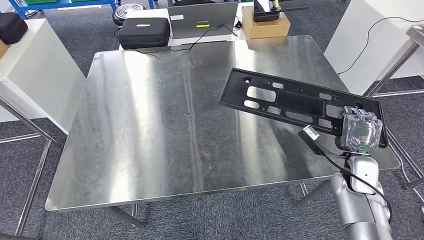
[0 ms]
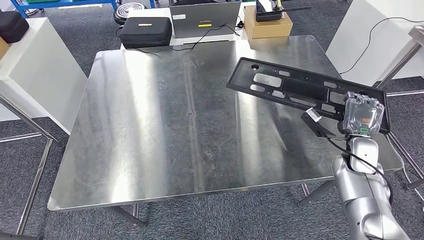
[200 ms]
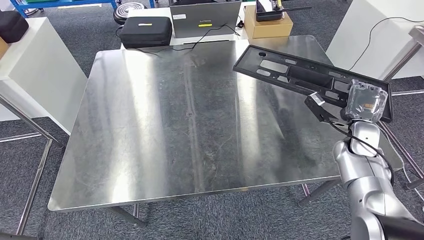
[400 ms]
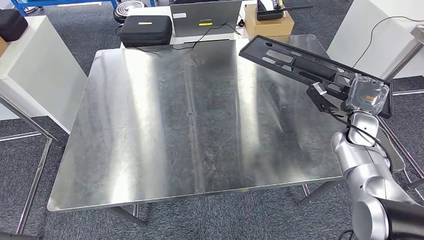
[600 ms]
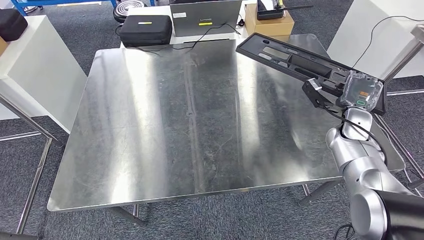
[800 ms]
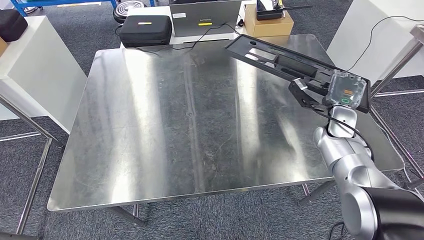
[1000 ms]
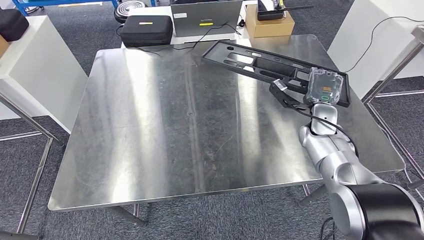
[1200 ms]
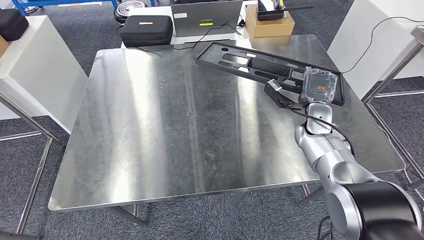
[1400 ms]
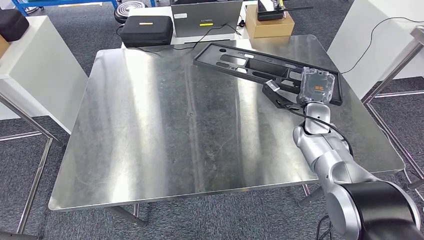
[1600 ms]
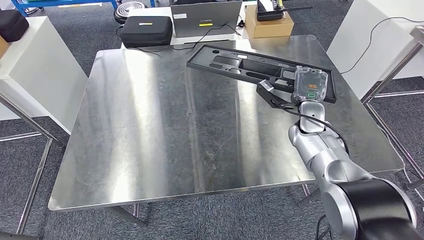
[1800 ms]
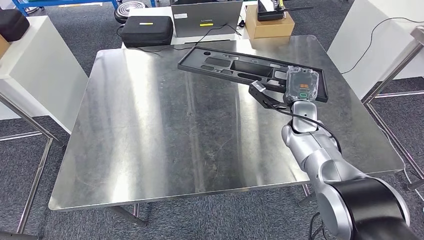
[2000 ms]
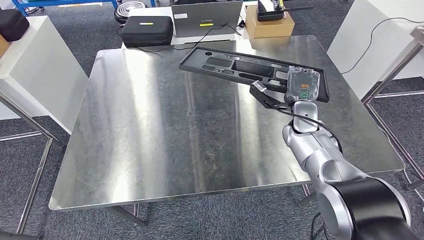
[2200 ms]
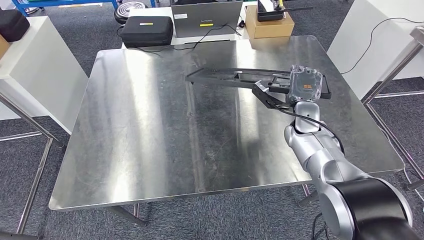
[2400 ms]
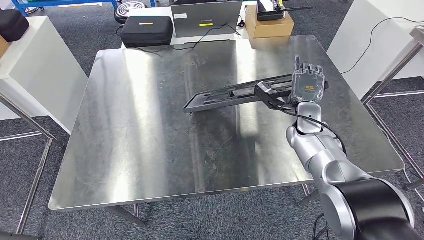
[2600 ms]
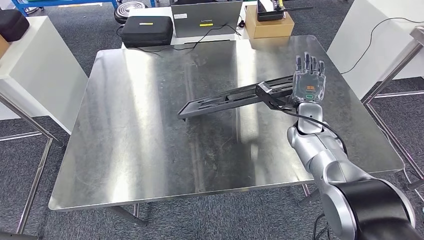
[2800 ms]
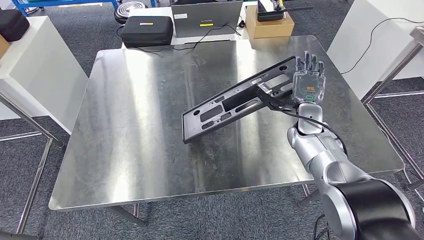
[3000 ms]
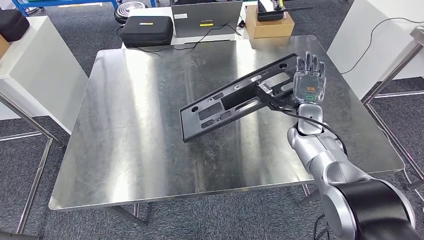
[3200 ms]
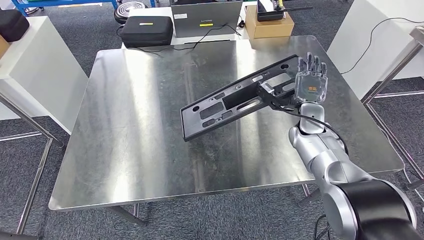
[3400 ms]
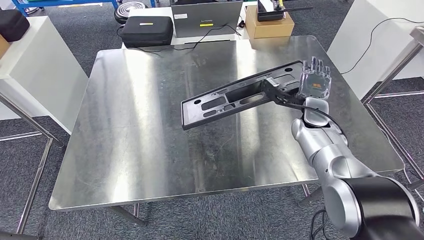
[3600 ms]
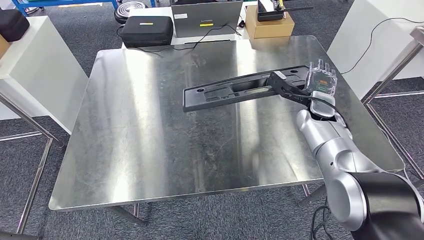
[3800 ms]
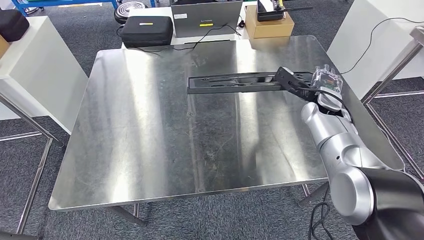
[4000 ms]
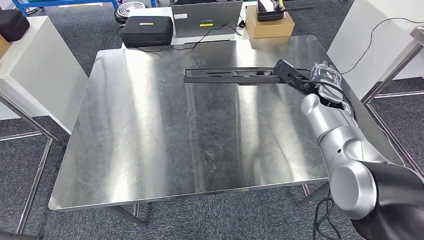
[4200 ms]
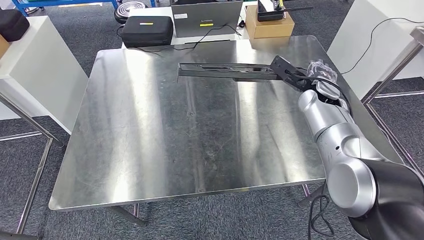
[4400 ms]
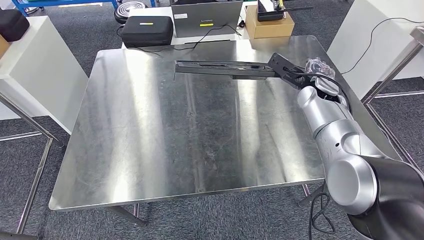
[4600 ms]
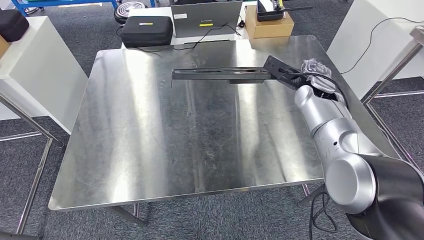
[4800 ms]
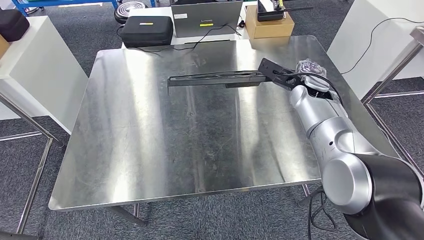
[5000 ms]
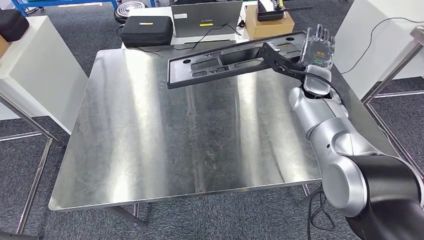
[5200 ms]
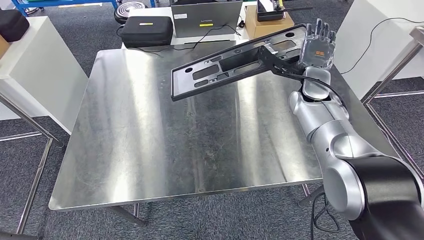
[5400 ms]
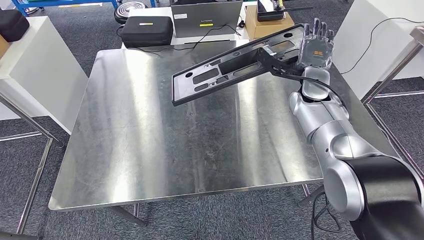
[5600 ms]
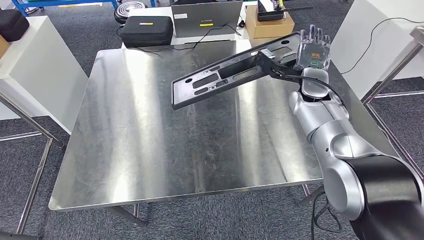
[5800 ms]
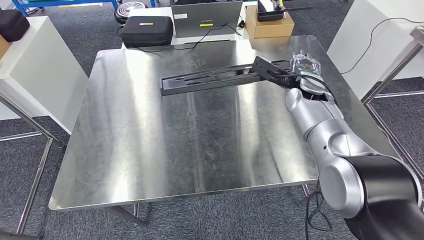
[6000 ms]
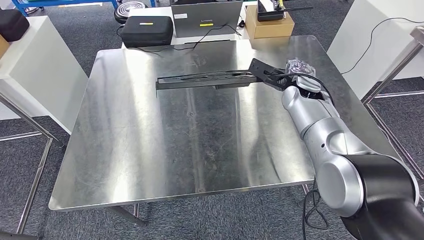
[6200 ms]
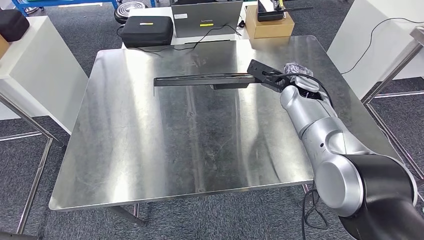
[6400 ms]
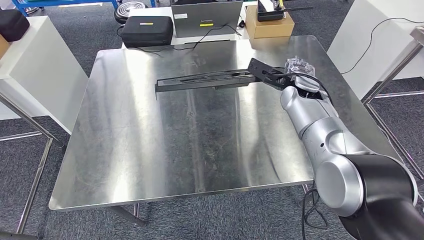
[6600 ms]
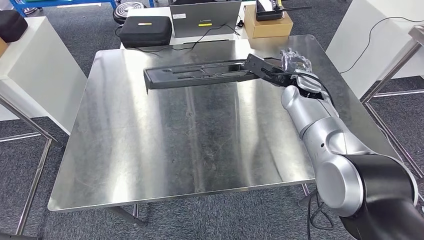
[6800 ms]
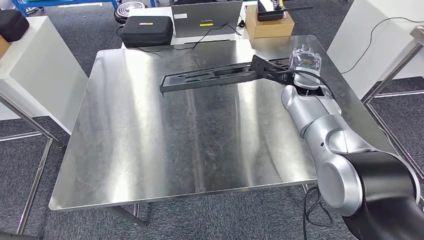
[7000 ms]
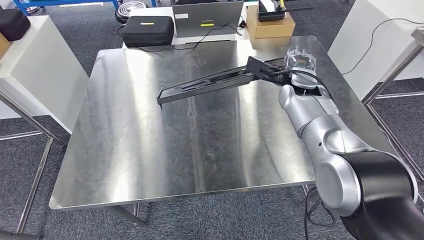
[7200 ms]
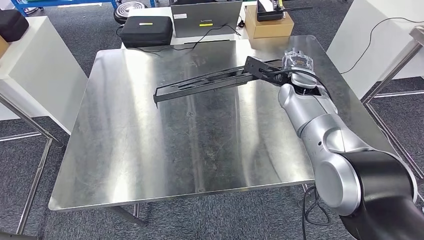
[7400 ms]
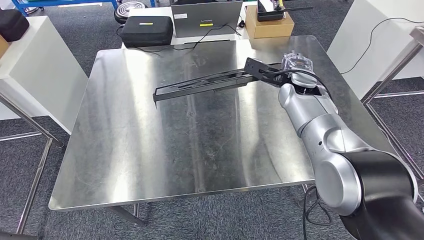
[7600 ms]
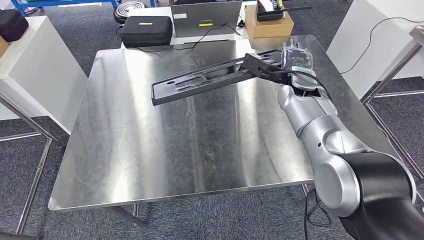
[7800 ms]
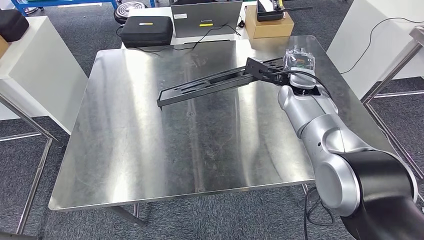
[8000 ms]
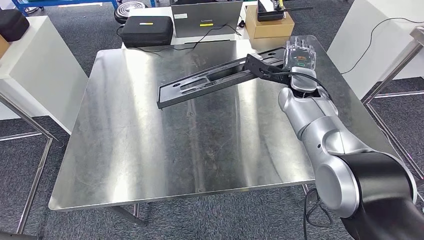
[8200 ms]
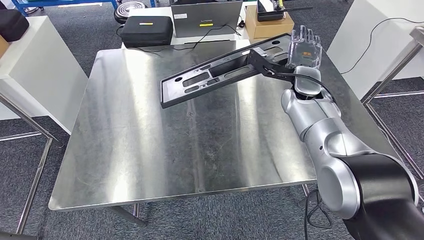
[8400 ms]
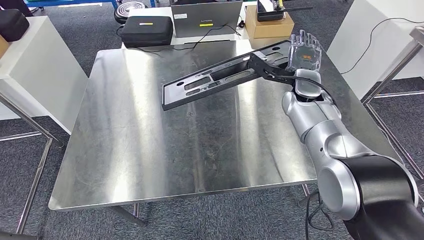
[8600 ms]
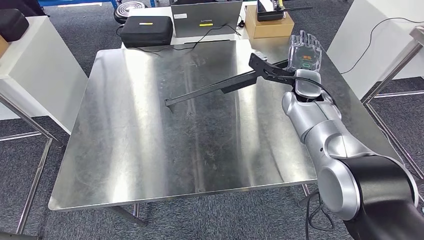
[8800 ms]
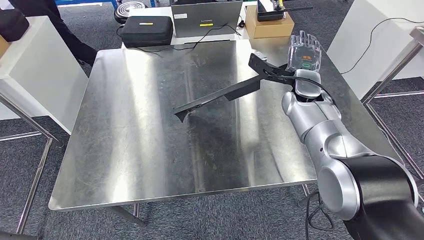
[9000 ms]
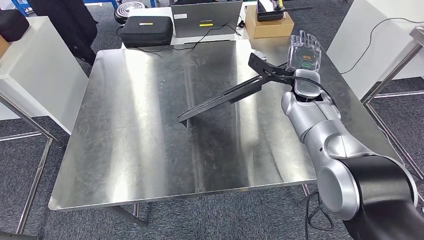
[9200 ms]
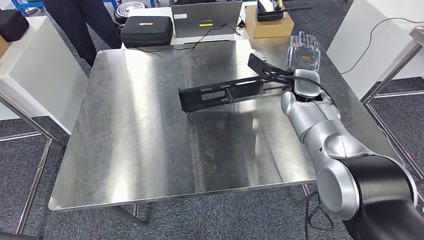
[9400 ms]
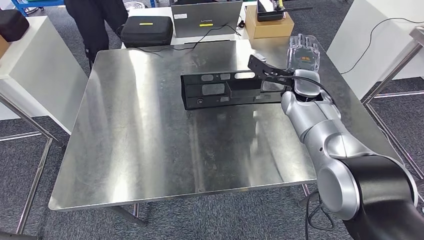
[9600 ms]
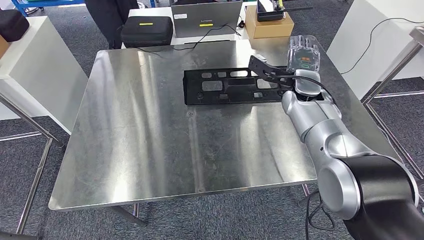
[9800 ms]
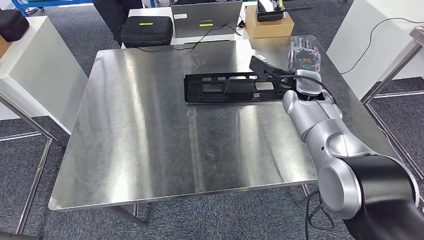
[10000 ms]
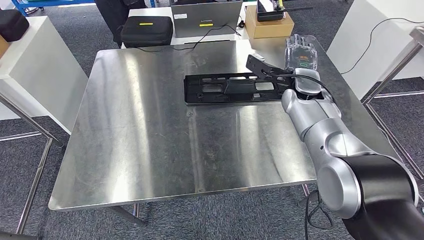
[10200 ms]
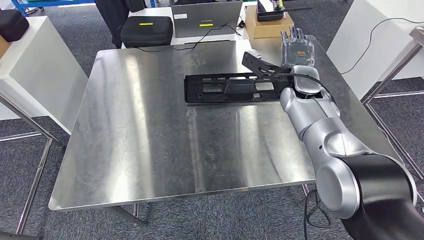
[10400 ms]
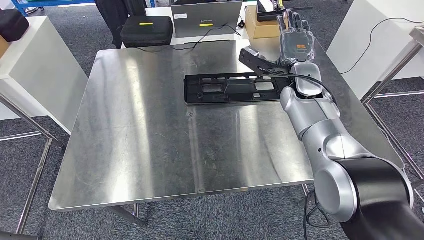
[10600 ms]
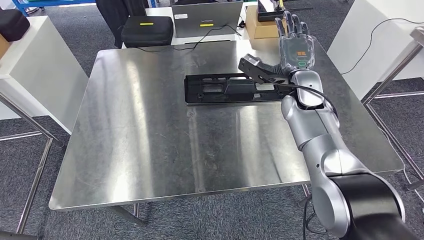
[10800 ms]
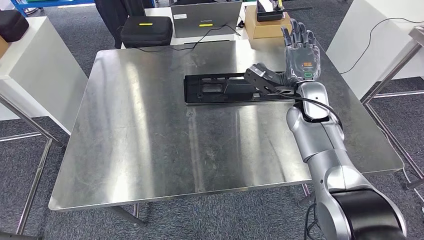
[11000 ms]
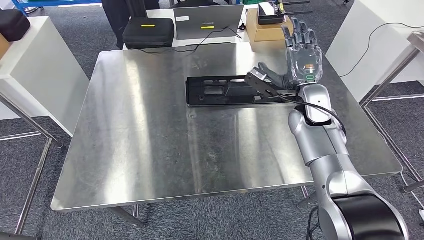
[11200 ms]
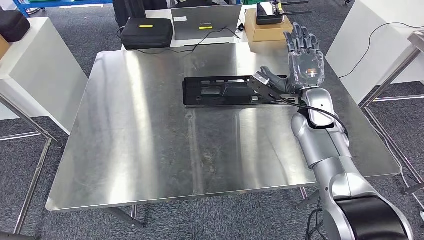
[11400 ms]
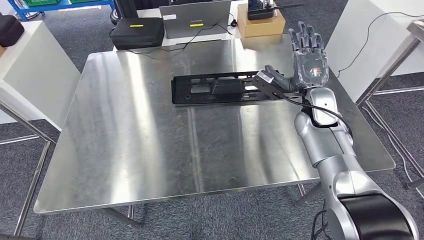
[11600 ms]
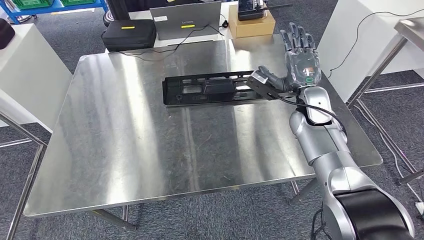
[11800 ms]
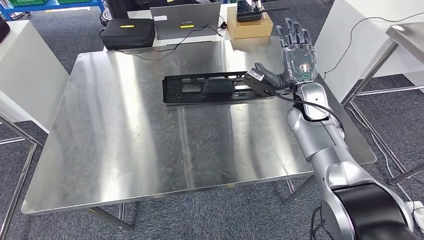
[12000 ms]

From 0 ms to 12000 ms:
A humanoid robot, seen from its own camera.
Step, from 0 ms to 10600 ms: Insert the large material into the corresponding slot on the workbench.
From 1600 ms to 3000 ms: The hands make only small movements.
From 3000 ms to 4400 ms: The right hand is displaced upward by roughly 10 cm.
From 6000 ms to 7600 ms: The hands make only small movements.
From 9000 ms to 10400 ms: The hands move only a little.

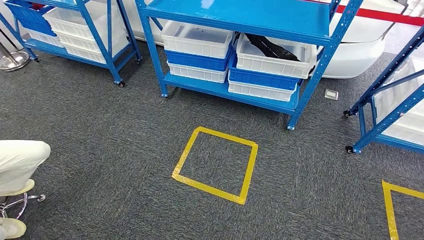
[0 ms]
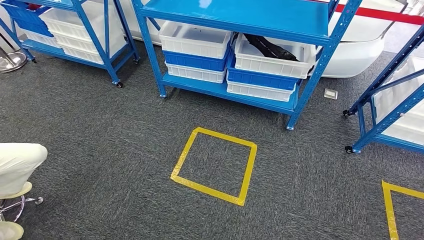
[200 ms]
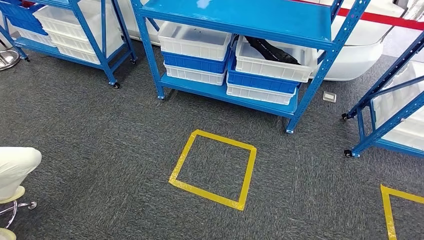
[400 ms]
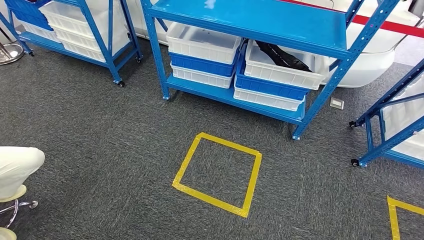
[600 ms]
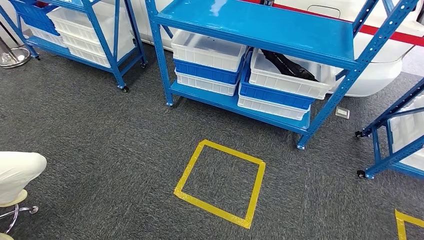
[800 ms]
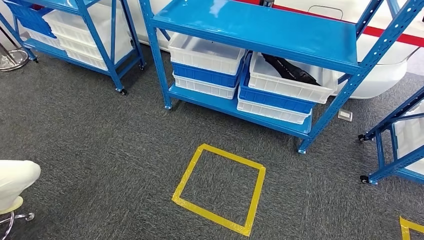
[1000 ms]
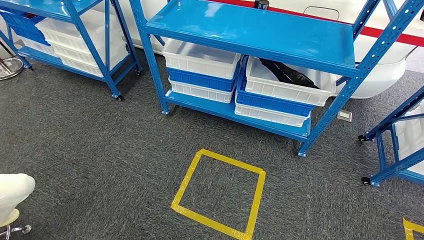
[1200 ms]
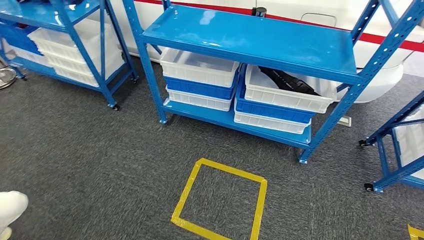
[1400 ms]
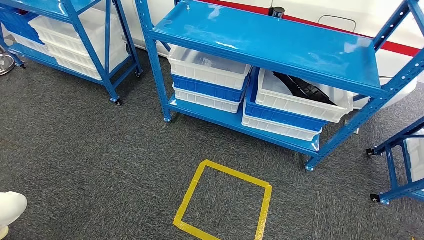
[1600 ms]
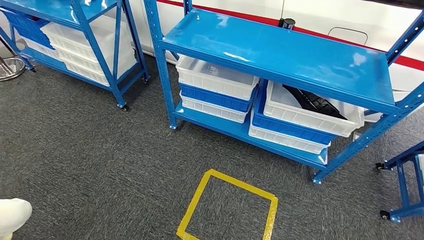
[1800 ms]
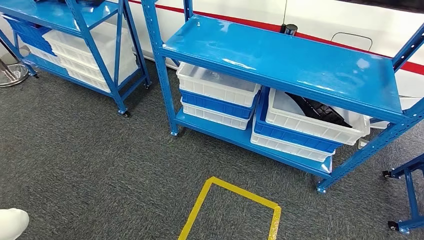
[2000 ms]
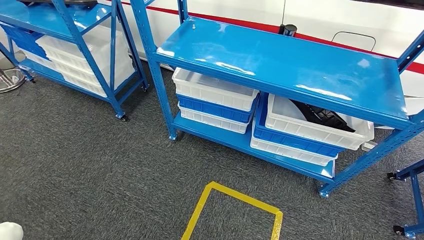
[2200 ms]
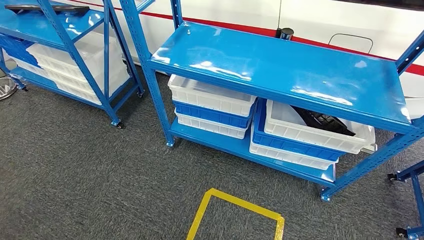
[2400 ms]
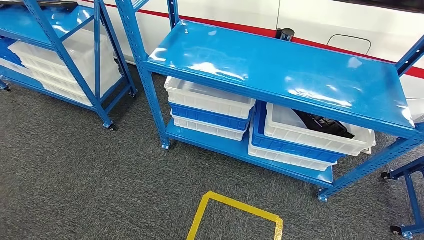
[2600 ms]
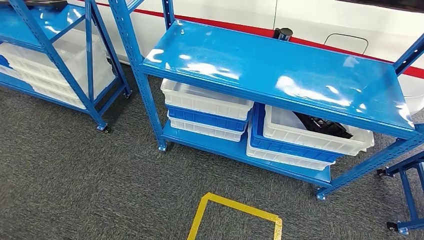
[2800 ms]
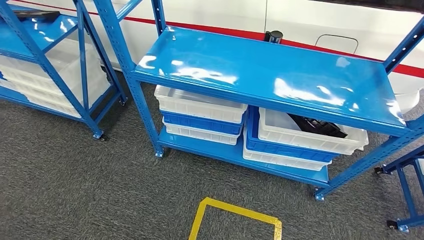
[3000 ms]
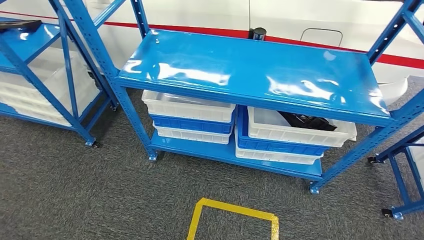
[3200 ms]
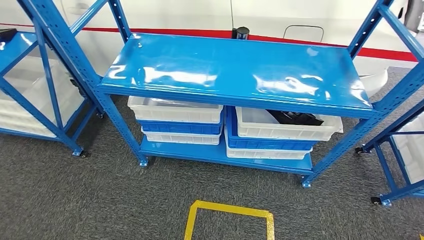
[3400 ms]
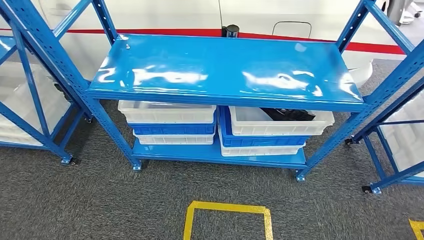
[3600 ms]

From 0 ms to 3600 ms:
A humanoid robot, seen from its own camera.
Step, from 0 ms to 3400 ms: Move to the initial position of the shelf.
